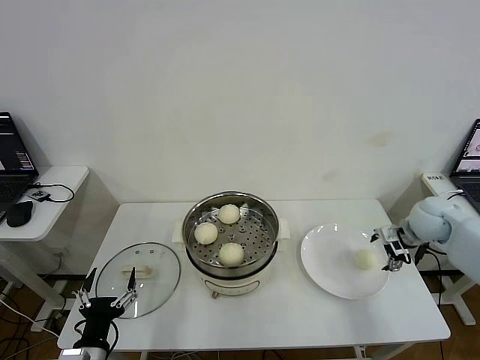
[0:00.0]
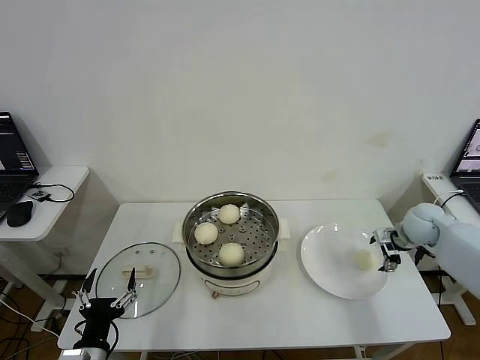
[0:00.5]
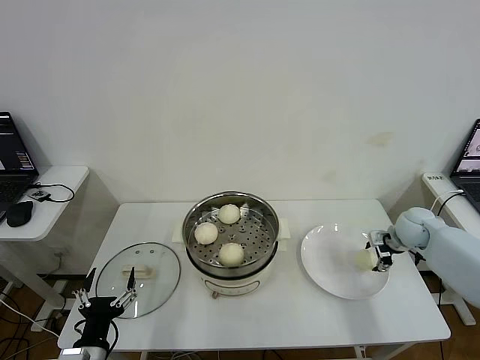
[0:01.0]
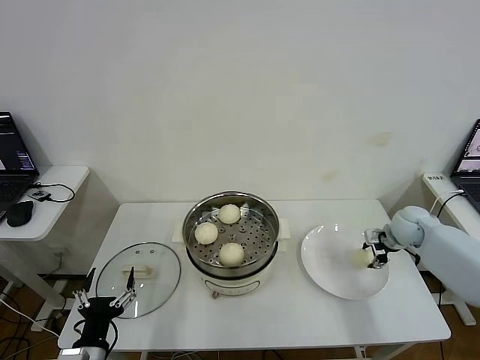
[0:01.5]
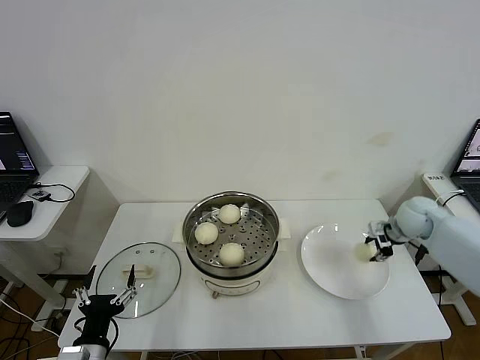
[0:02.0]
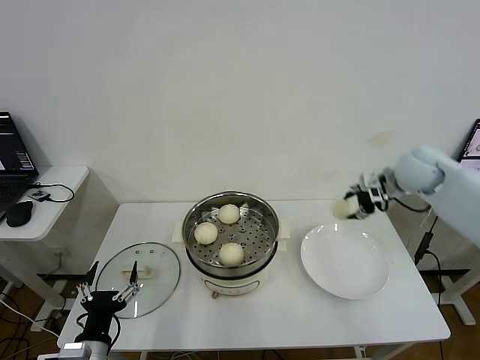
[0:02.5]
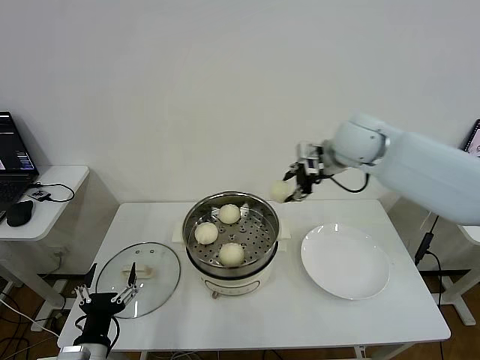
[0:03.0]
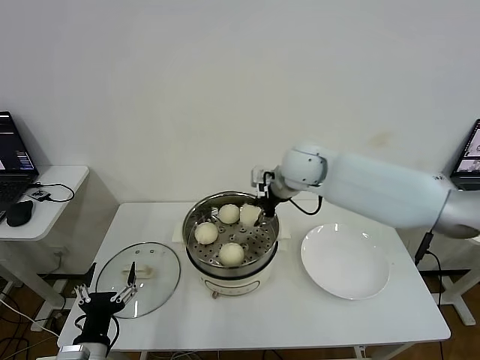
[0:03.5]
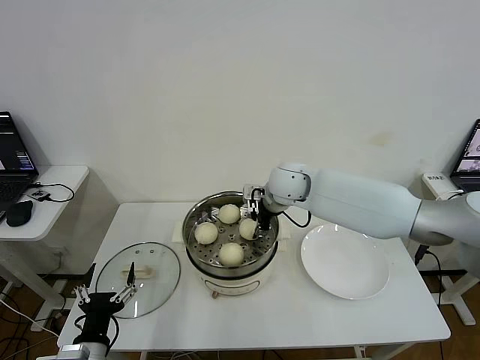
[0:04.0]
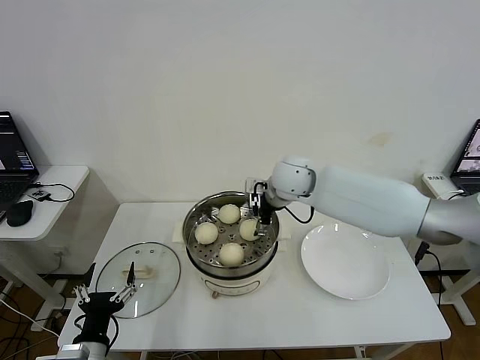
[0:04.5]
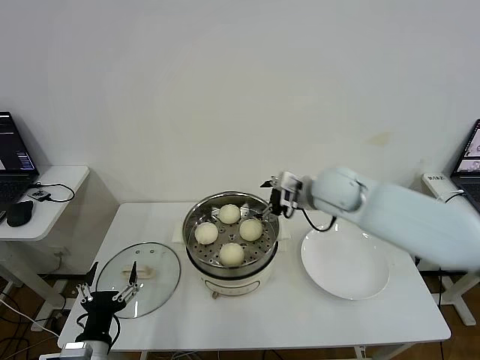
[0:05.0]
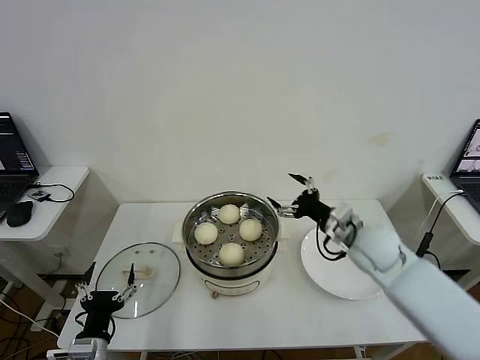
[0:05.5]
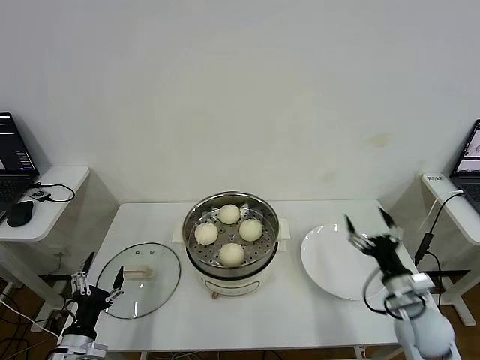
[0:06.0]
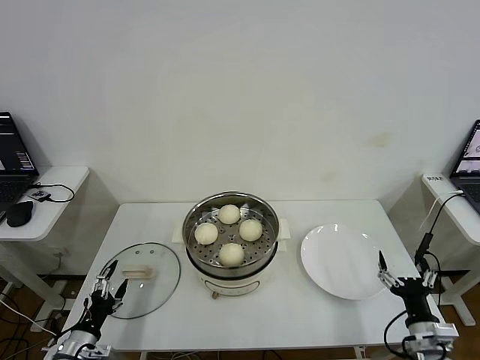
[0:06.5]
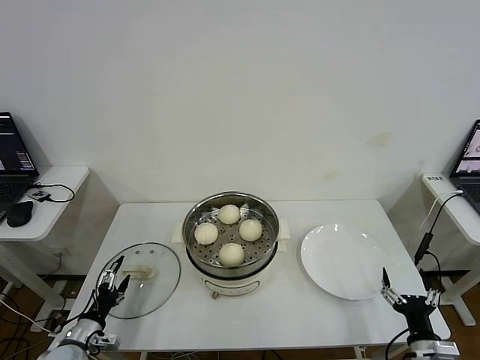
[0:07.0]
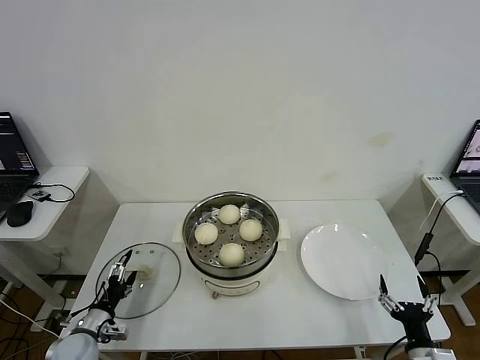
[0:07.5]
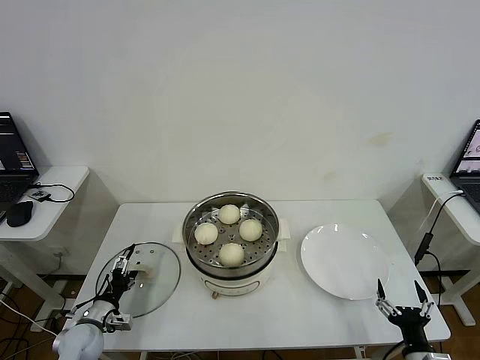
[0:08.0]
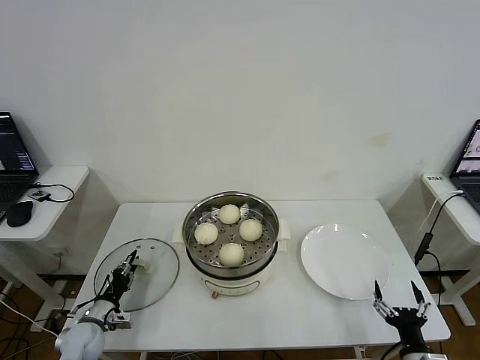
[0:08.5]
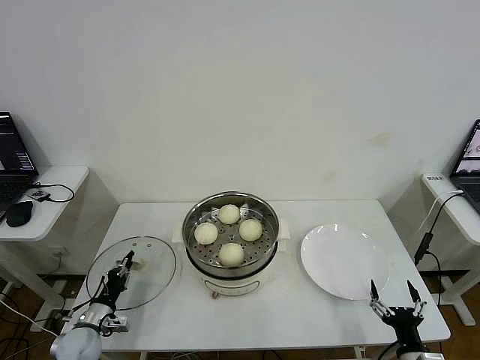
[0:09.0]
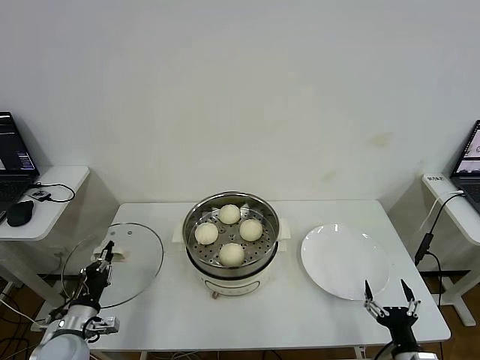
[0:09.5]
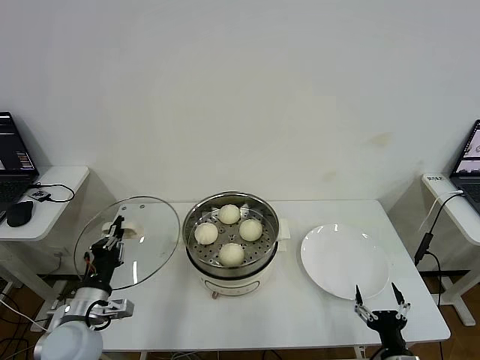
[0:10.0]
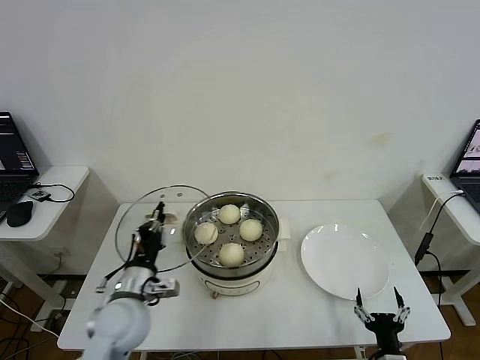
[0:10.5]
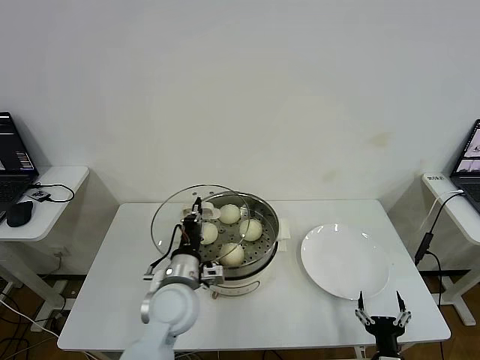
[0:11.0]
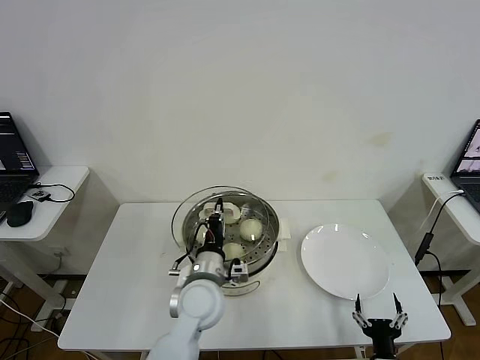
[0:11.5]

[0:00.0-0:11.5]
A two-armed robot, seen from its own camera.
Step, 0:02.0 to 0:04.5: Place the baozi on the steamer with right gripper.
Step, 0:05.0 to 0:08.5: Grasp the pot lid with left gripper.
0:00.0 to 0:02.0: The right gripper closes up.
0:02.0 to 0:04.0: The right gripper moves to the left, some 35 cm.
0:04.0 to 0:06.0: The left gripper travels to the left by some 5 cm. The right gripper travels backward, to the right and downward by approximately 40 cm, and opens.
0:06.0 to 0:07.5: The left gripper shifts approximately 10 cm forward and downward, while the right gripper heads backward and downward, covering about 15 cm.
0:07.5 to 0:09.5: The left gripper moves upward, about 5 cm, and closes its fingers.
0:09.5 to 0:11.5: The left gripper shifts some 30 cm to the right. Meanwhile the right gripper travels to the left by roughly 5 cm.

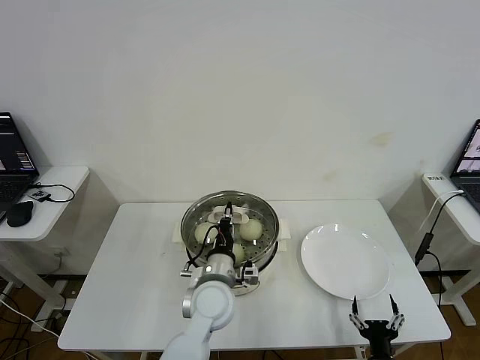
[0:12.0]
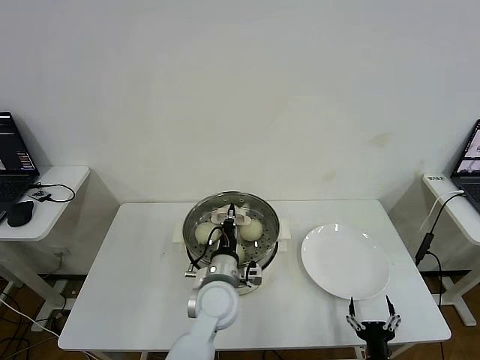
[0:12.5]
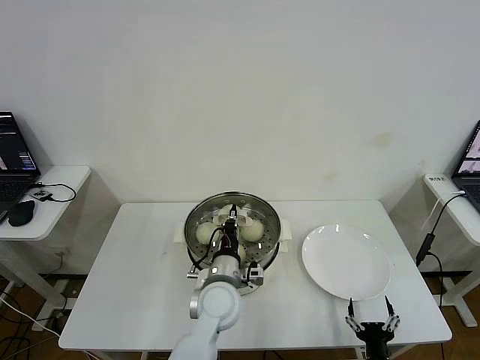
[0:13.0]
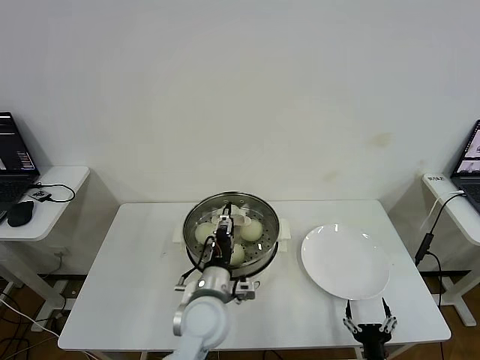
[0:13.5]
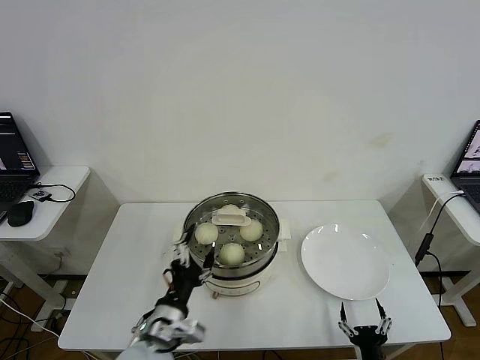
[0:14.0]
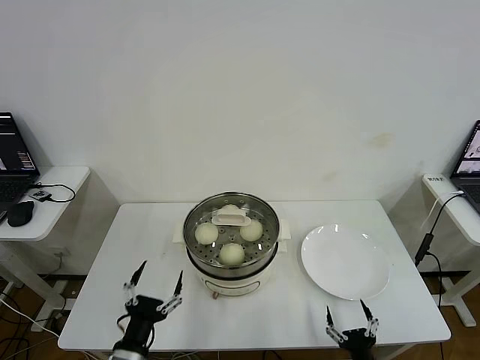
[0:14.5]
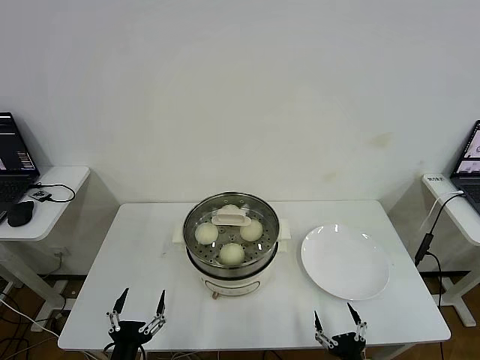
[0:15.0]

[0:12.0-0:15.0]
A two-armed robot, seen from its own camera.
0:12.0 to 0:13.5: The left gripper opens up.
0:13.5 to 0:15.0: The left gripper heads backward, to the left and downward, covering approximately 30 cm, and opens.

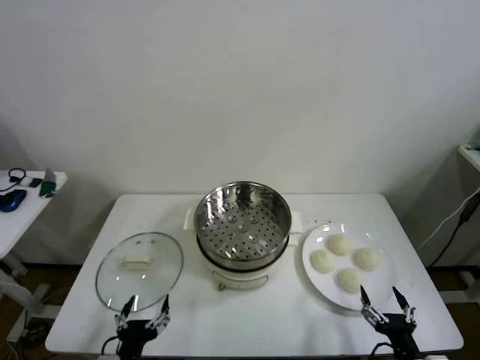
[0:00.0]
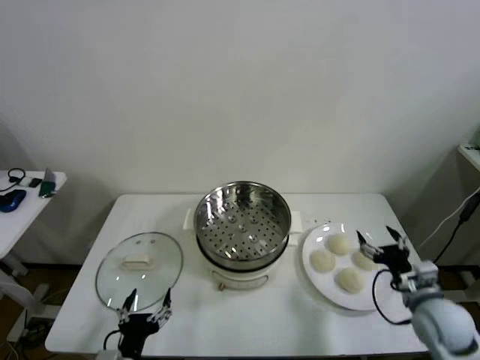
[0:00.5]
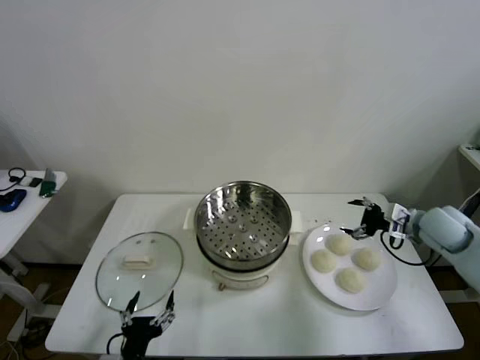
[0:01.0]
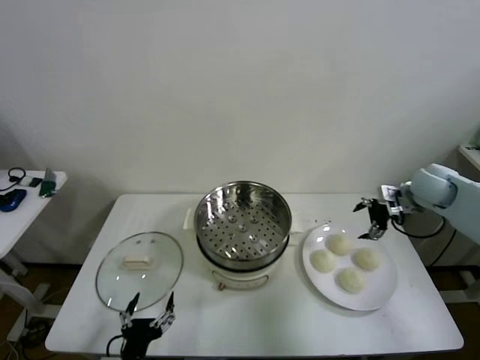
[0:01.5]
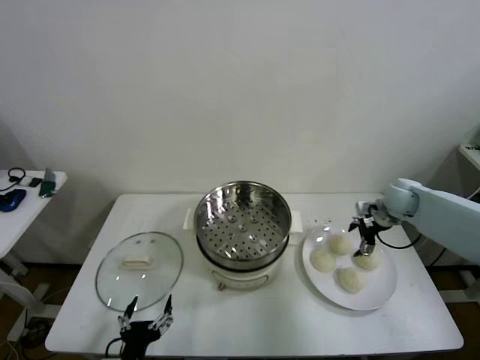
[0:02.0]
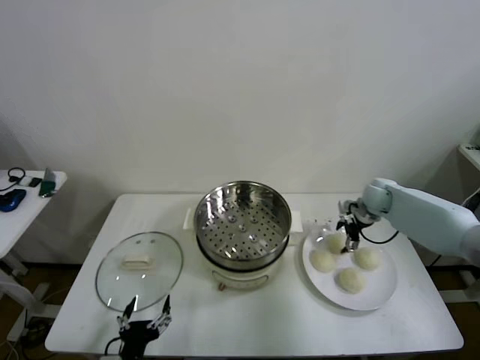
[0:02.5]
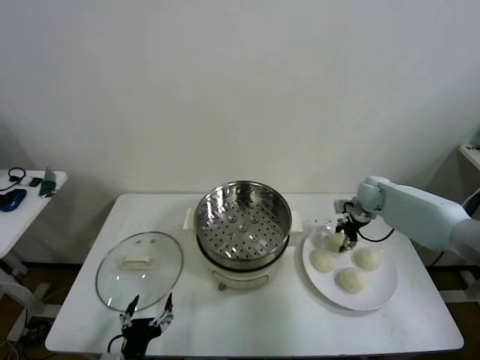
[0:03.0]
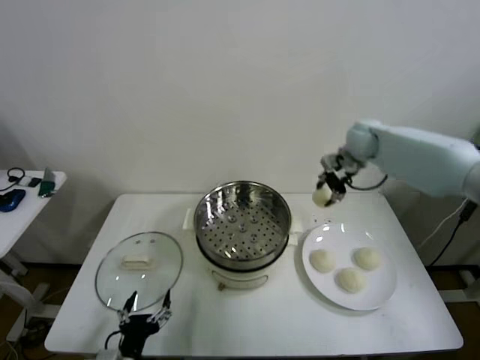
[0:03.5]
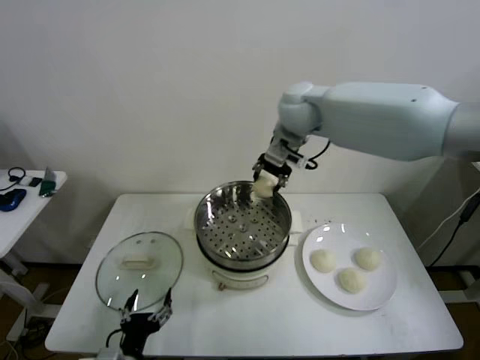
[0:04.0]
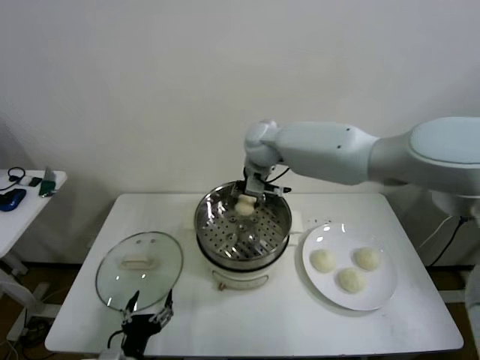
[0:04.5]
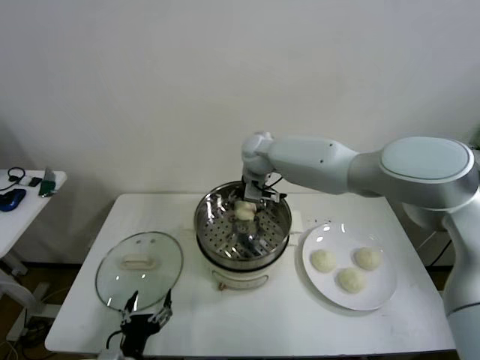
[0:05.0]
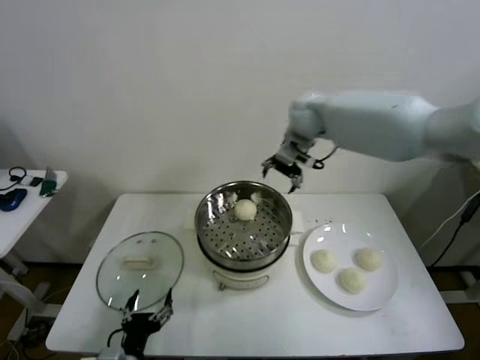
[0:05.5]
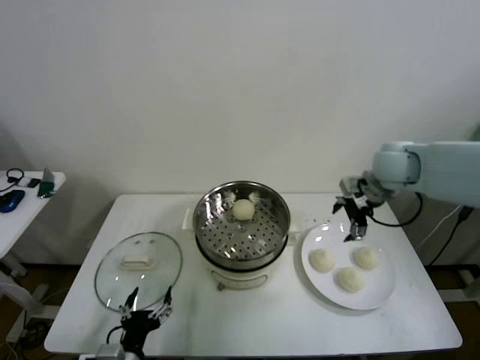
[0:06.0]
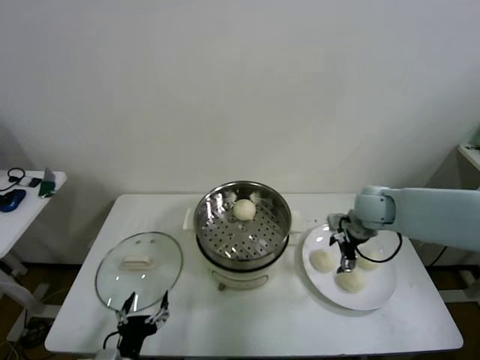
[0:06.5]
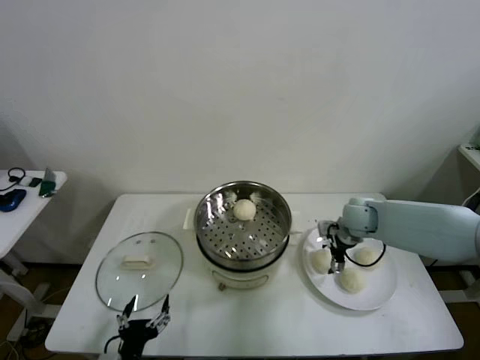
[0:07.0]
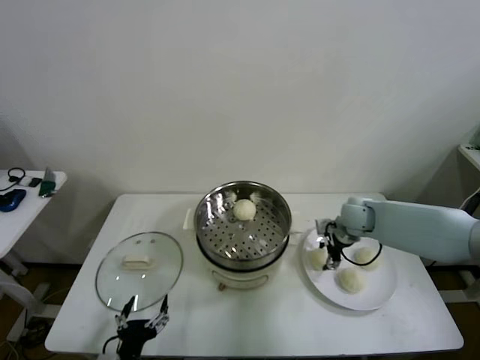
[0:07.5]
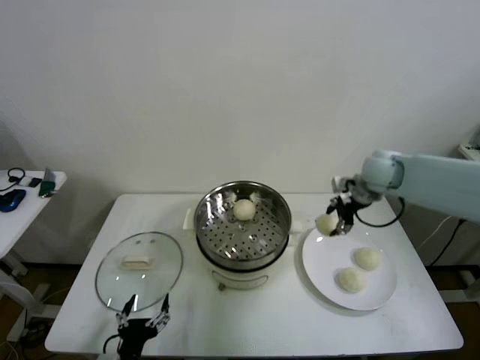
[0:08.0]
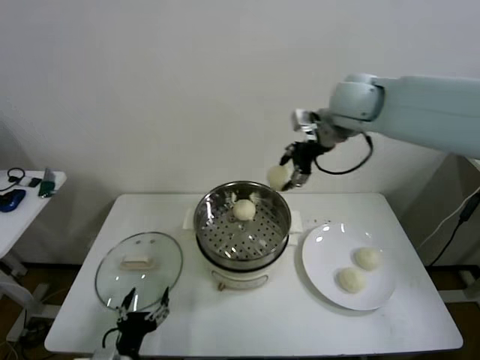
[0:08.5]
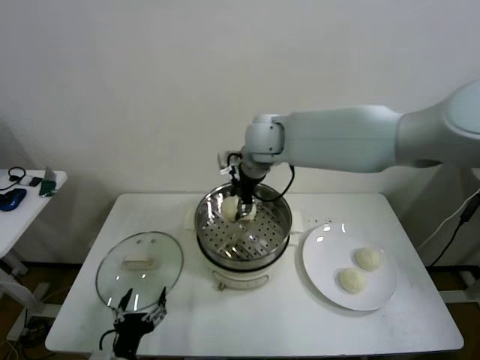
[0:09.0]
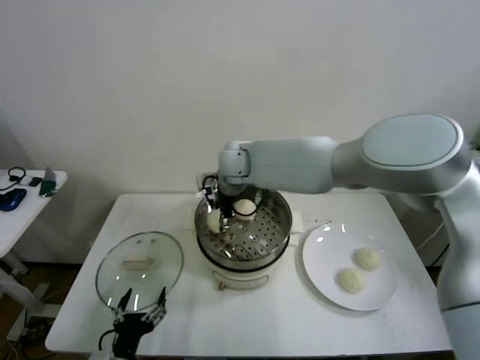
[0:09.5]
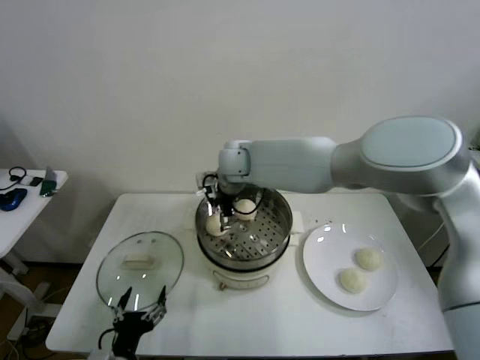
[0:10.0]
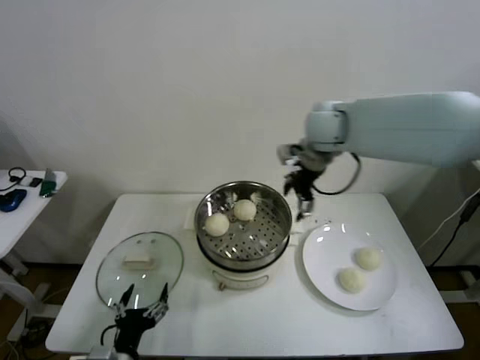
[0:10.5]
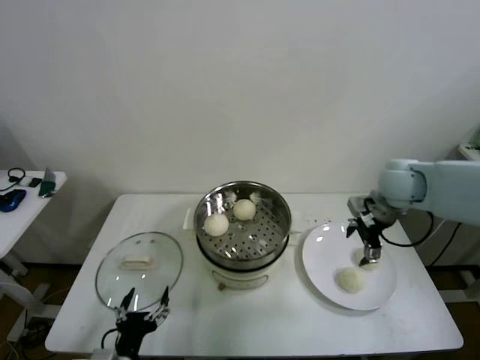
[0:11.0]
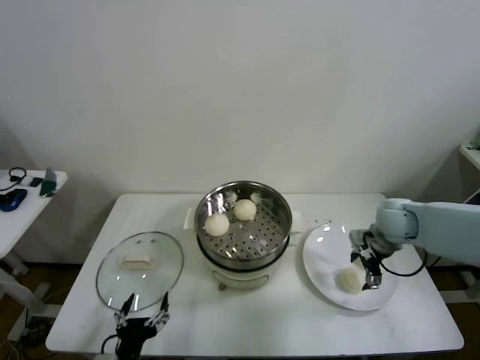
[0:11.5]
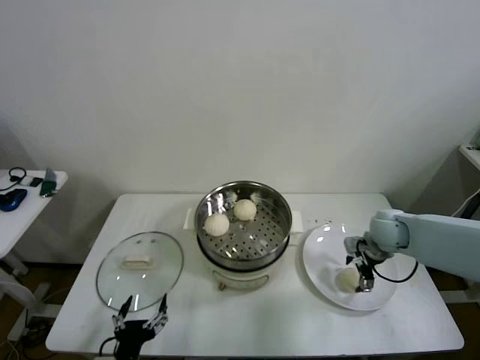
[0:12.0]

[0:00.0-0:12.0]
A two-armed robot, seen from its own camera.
Step, 0:00.0 to 0:02.5: Grasp the baozi in the plate with right gripper.
Step, 0:03.0 to 0:05.0: Place the baozi on the steamer with right gripper.
Step, 0:05.5 to 0:07.0: Grasp the baozi in the plate with right gripper.
Step, 0:07.5 to 0:09.5: Place the baozi on the steamer with right gripper.
0:02.0 to 0:04.0: The right gripper heads to the left and upward, covering roughly 40 cm, and closes.
0:04.0 to 0:06.0: The right gripper is displaced to the right and downward by some 25 cm, and opens its fingers.
0:06.0 to 0:08.0: The right gripper moves some 15 cm downward and comes back, and closes up.
0:08.0 to 0:10.0: The right gripper moves to the left, about 30 cm, and opens its fingers.
0:10.0 to 0:12.0: The right gripper goes about 40 cm to the right and downward.
